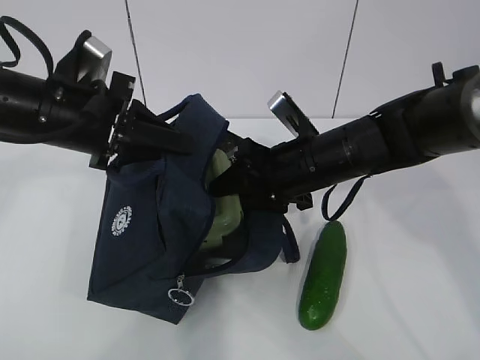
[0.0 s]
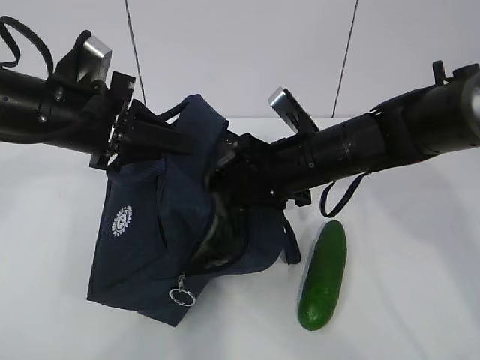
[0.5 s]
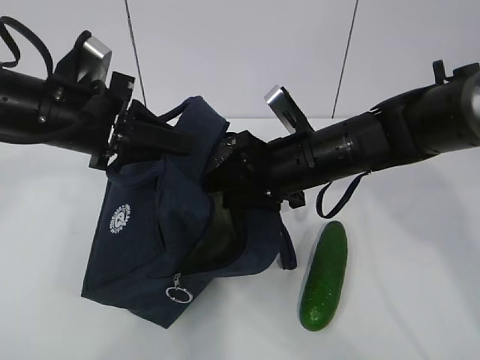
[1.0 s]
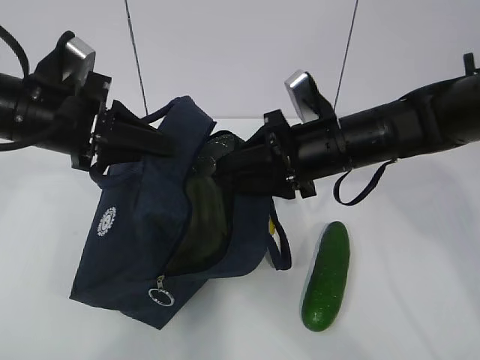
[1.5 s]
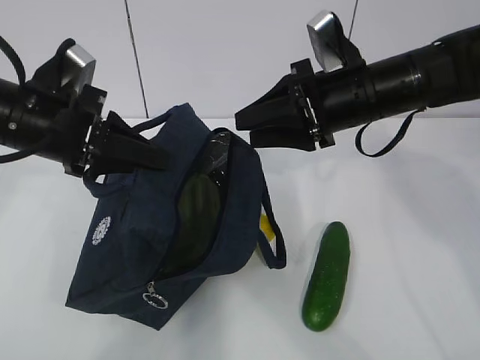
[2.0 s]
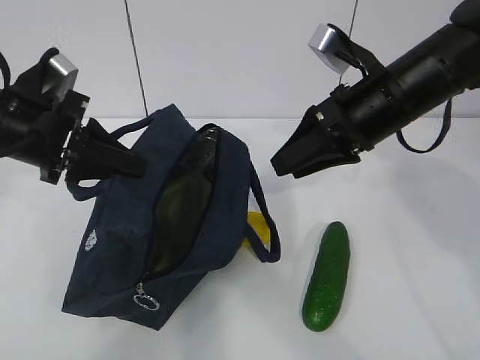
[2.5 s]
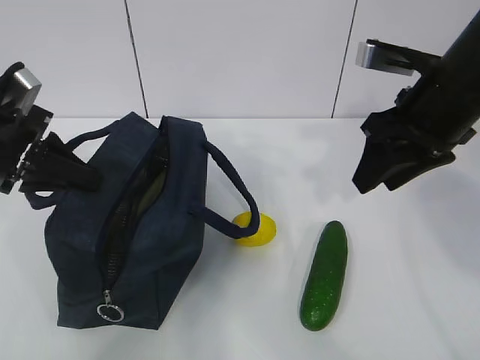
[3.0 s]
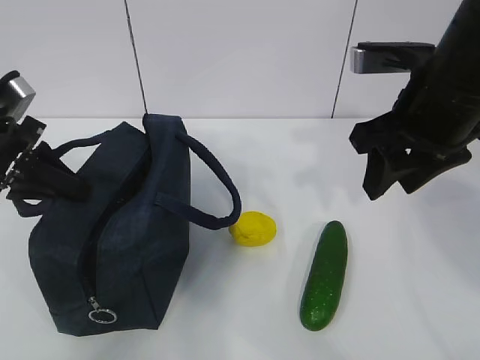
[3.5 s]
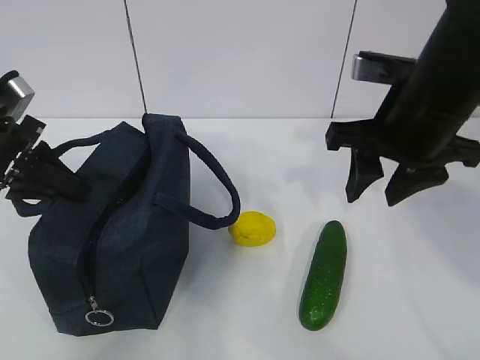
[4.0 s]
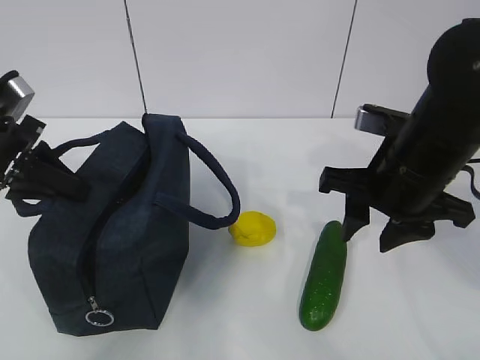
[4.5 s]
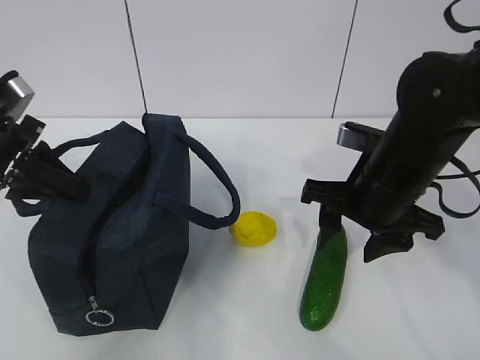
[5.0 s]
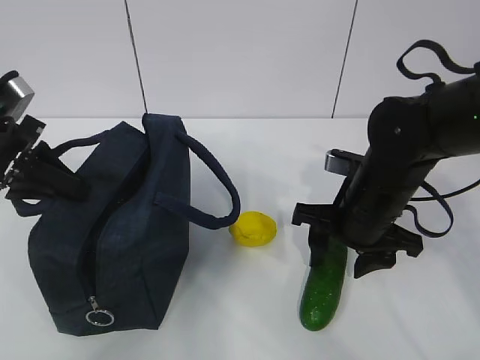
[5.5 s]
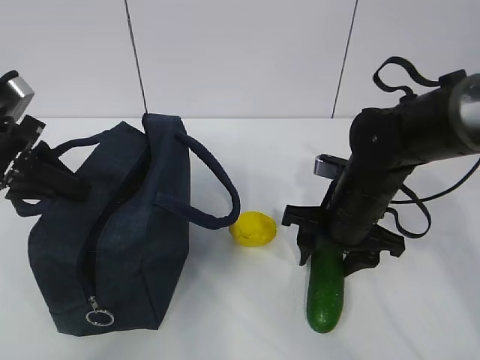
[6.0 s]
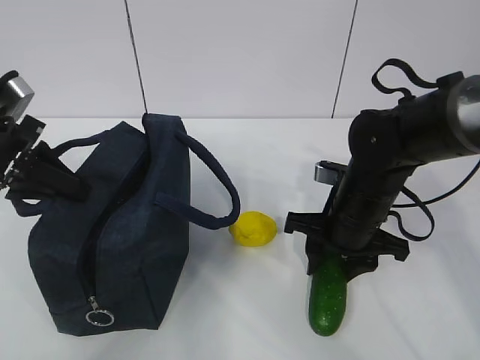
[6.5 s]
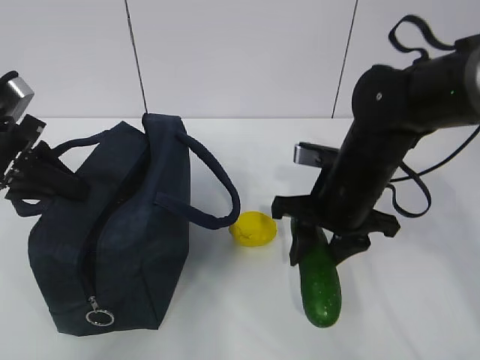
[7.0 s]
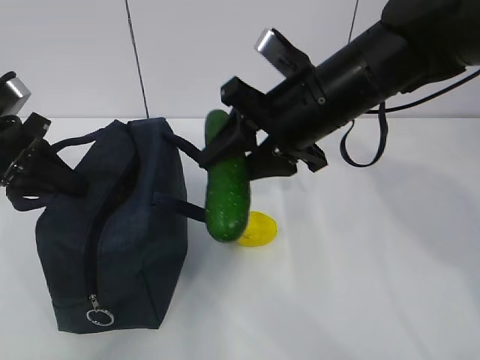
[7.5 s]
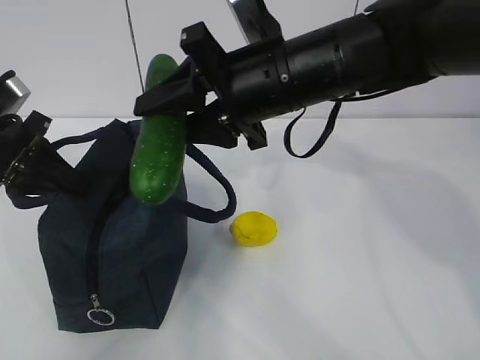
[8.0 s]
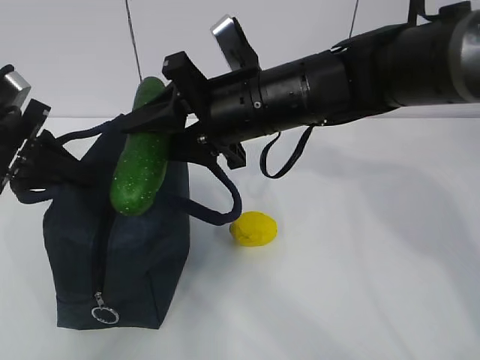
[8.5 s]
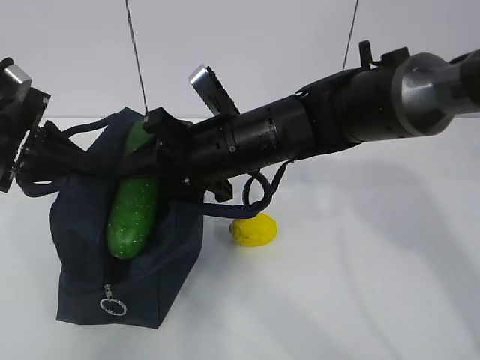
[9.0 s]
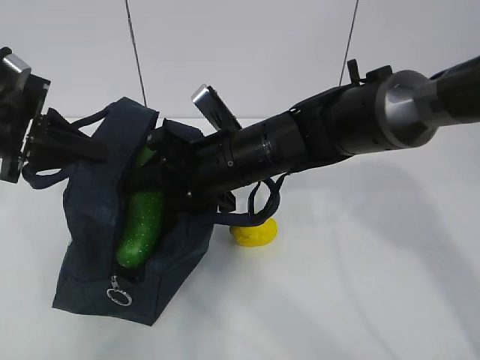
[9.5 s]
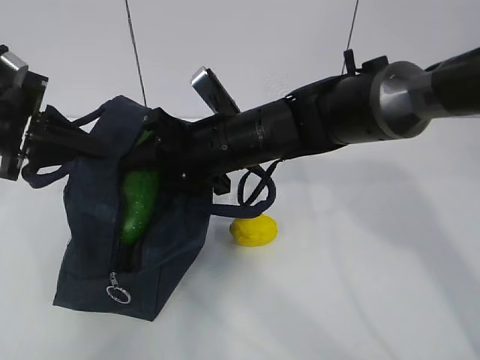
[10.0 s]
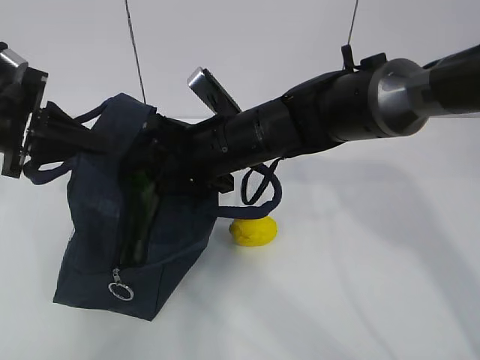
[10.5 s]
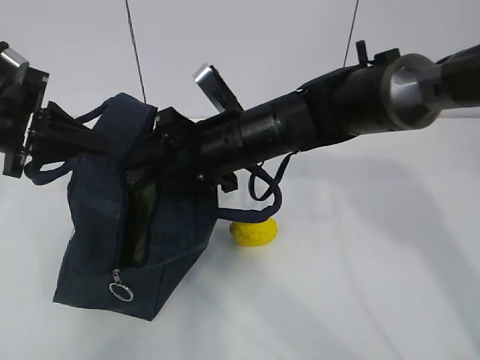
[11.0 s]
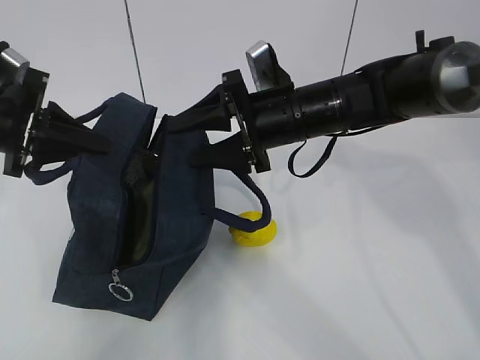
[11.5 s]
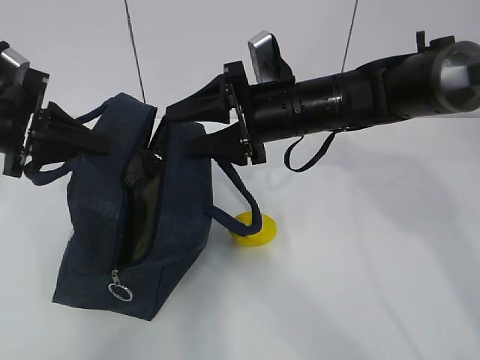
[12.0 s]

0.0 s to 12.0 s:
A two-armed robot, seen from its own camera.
Step, 1.5 to 4.5 s: Place it into the bag with your right hand.
Step, 5.0 to 10.0 s: Grab the lemon with your right hand.
0.0 to 2.0 s: The right gripper is displaced upward by roughly 5 cm.
2.0 to 4.0 s: The left gripper shifts roughly 10 cm to the left. The right gripper shifts approximately 5 cm backward.
4.0 to 6.0 s: The right gripper travels downward by about 15 cm.
6.0 to 8.0 s: The right gripper moves upward and to the left, some 20 cm.
8.0 to 10.0 s: The right gripper shifts approximately 10 cm downward.
10.0 to 12.0 s: The right gripper is displaced to the right by about 5 cm.

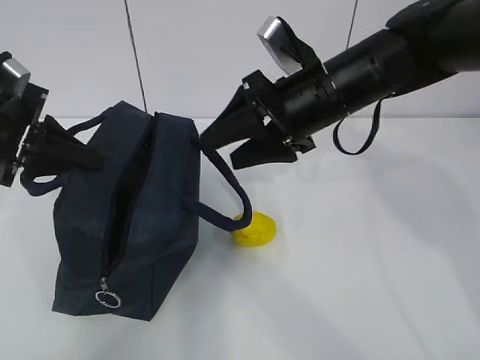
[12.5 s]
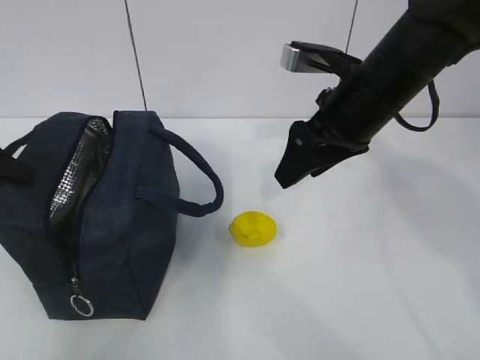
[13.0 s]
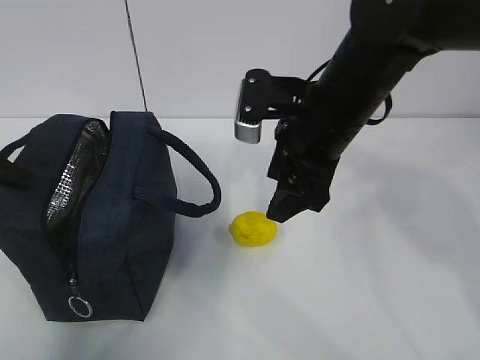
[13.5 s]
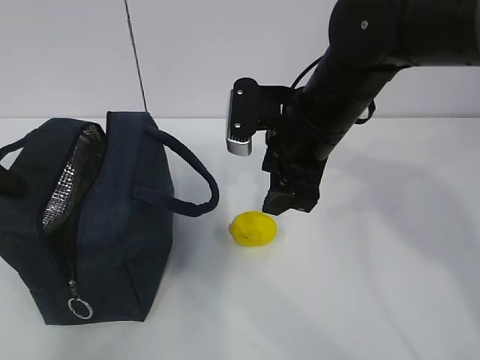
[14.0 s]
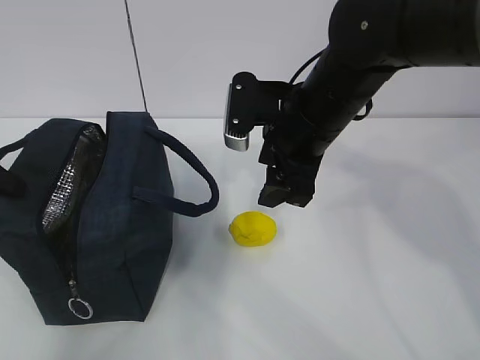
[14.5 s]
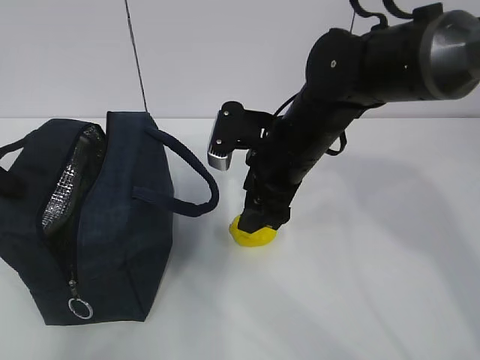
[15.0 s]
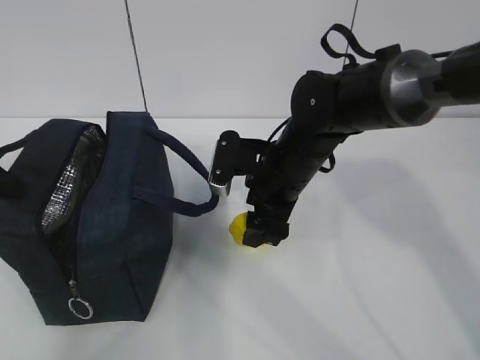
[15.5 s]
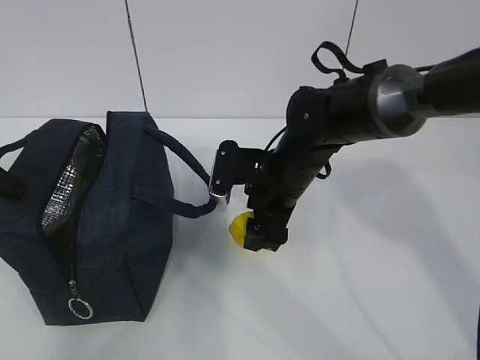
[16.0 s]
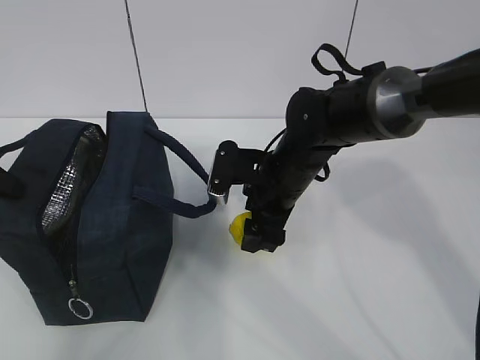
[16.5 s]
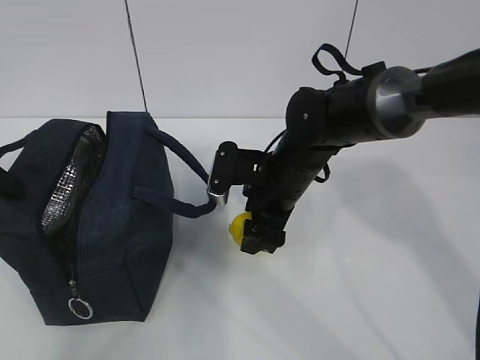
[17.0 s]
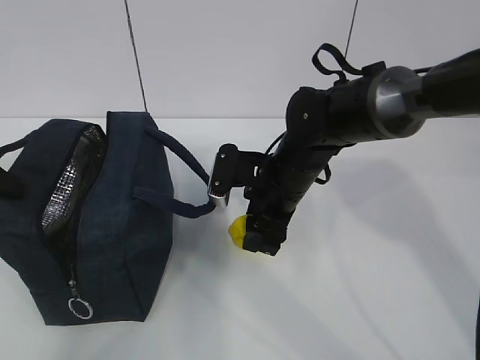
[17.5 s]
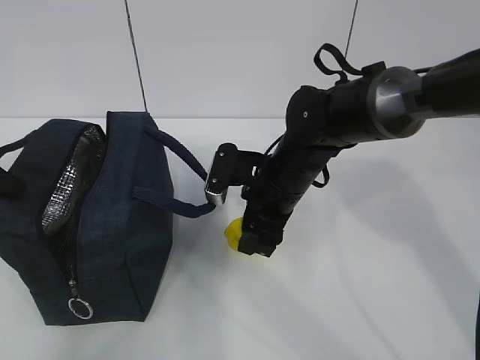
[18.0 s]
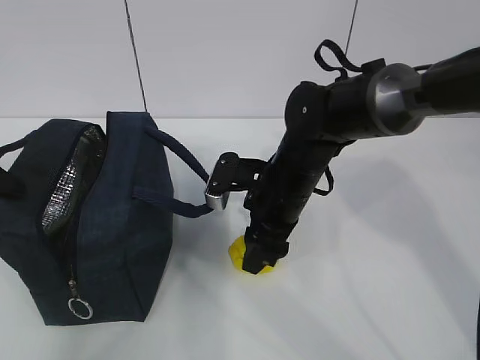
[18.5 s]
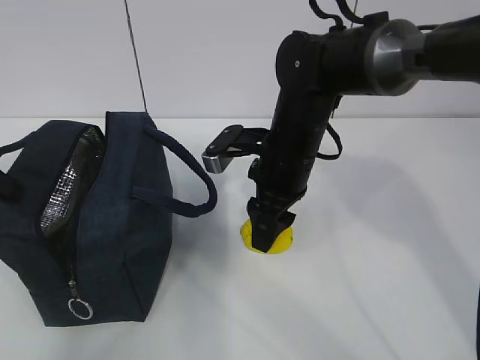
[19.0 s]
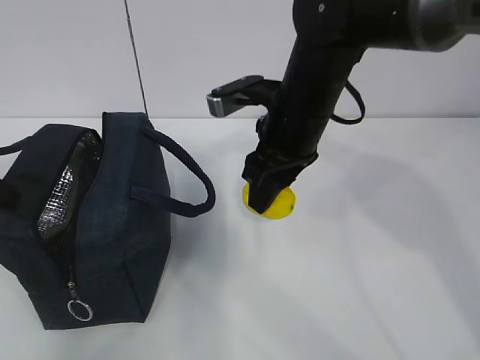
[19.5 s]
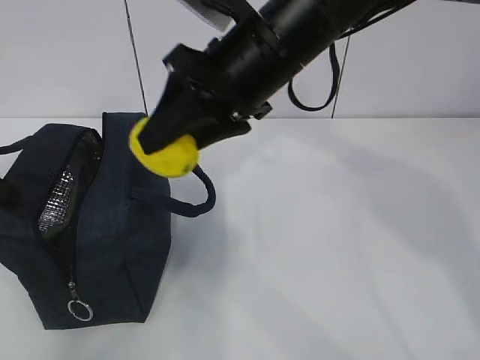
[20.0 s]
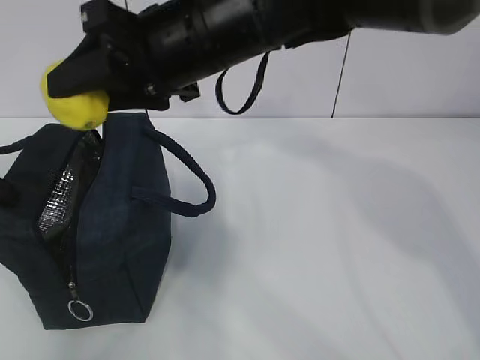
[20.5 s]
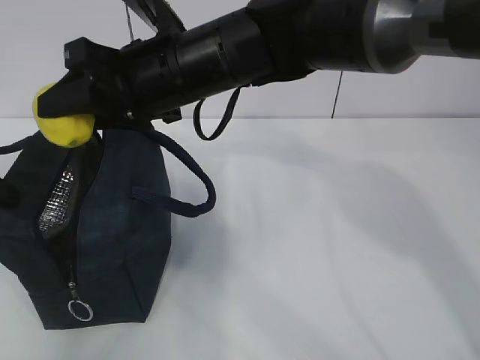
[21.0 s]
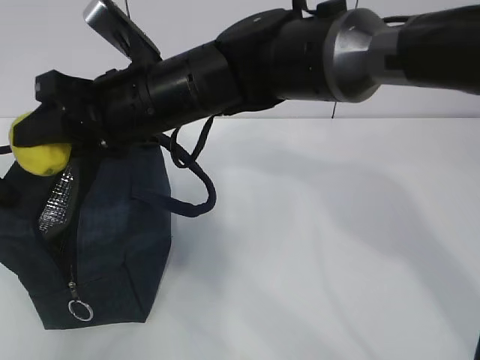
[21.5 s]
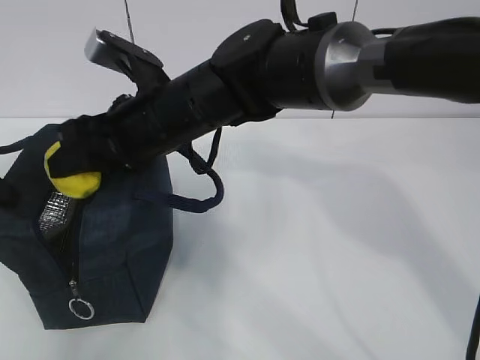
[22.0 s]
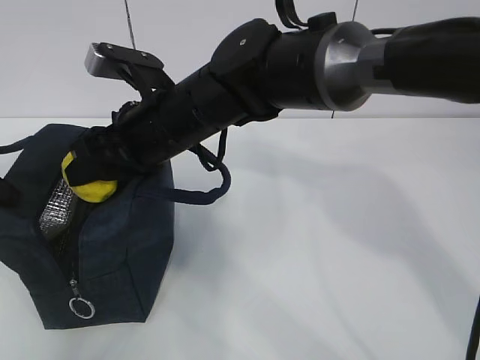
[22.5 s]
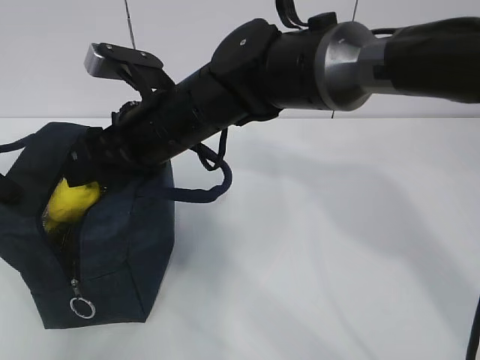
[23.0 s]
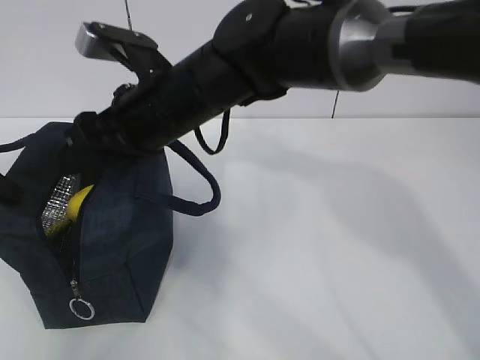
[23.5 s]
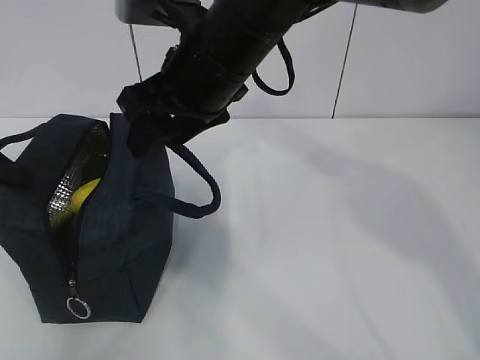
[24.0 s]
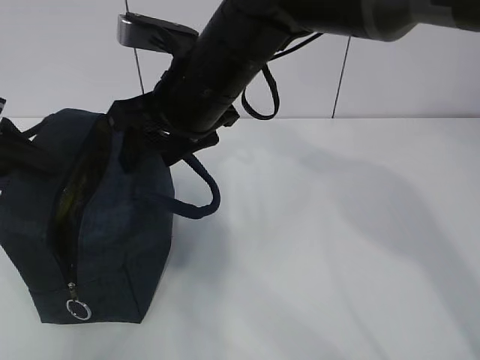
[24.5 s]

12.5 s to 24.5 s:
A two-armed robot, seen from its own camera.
Step, 12.5 to 15.0 s: Secure the lunch bag with your left hand.
Step, 15.5 to 17.0 s: Grab the lunch bag with your right hand.
Step, 17.5 to 19.5 s: Move the lunch bag to the right.
12.5 to 14.5 s: The left gripper is displaced to the left by about 10 cm.
14.5 to 16.5 s: The right gripper travels downward by some 10 cm.
16.5 to 18.5 s: The grippers stay close to where they were, moving slightly.
18.5 to 20.5 s: The right gripper moves upward and to the left, some 20 cm.
20.5 to 22.5 s: The right gripper goes about 10 cm downward.
22.5 to 24.5 s: The left gripper opens up, while the right gripper shifts by about 5 cm.

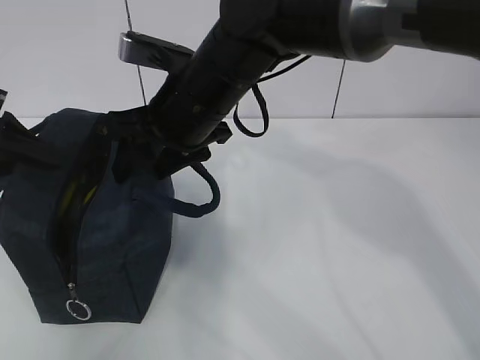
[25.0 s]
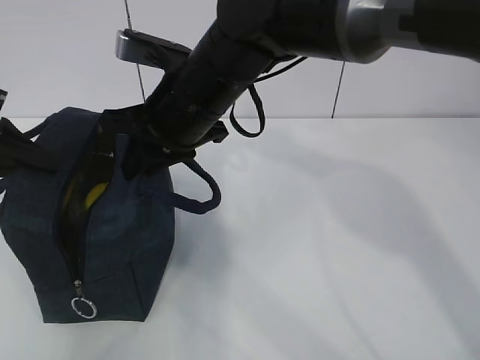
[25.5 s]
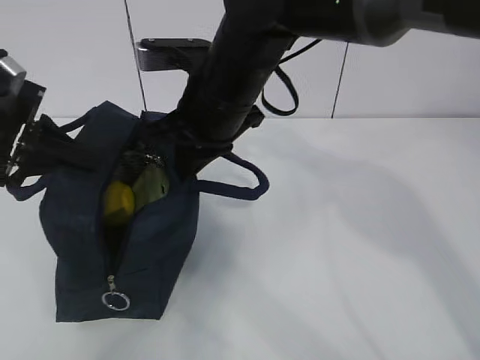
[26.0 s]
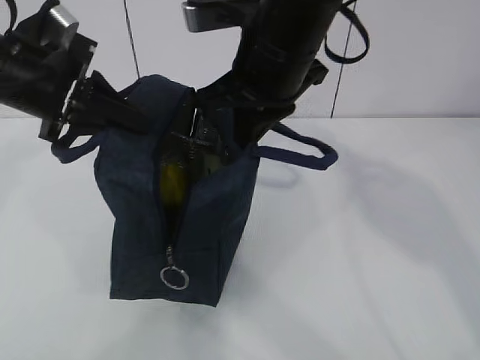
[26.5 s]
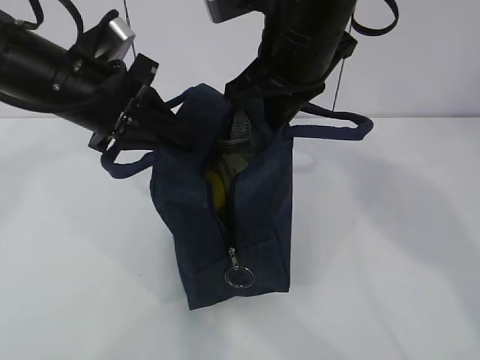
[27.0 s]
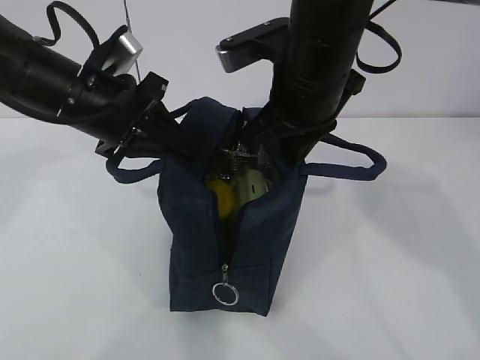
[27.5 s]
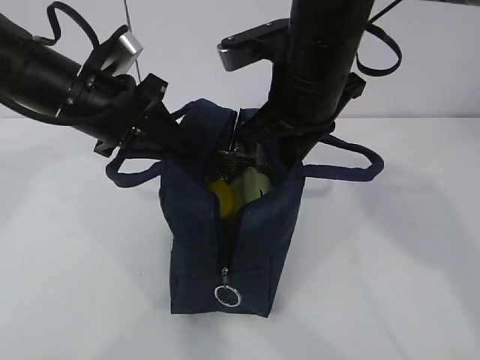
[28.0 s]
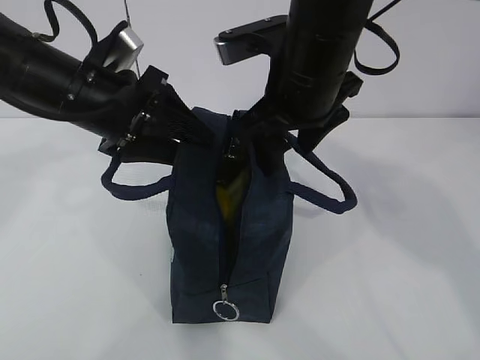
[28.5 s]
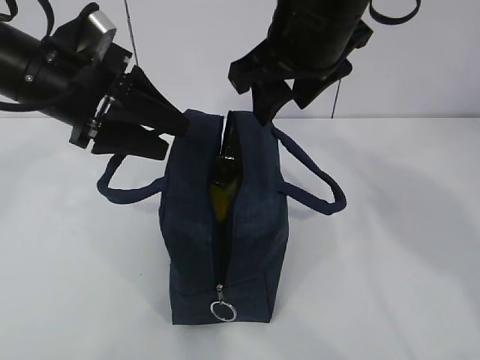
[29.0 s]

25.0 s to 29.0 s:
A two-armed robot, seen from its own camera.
25.0 to 27.0 s: The left gripper goes roughly 15 cm to the right, and closes its fingers; the right gripper heads to the right and upward, covering roughly 10 cm, and closes up.
27.0 to 29.0 s: The right gripper opens. Meanwhile the left gripper opens its fingers.
